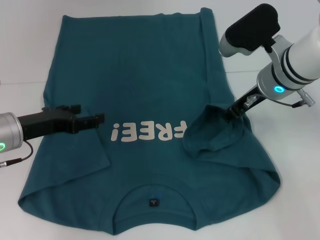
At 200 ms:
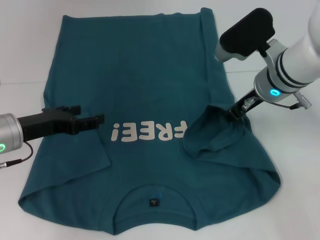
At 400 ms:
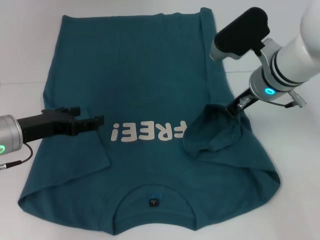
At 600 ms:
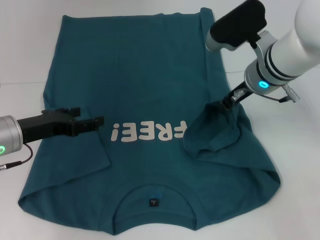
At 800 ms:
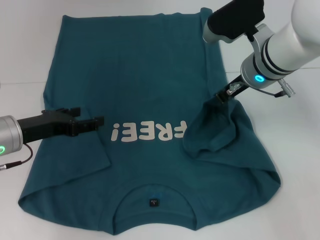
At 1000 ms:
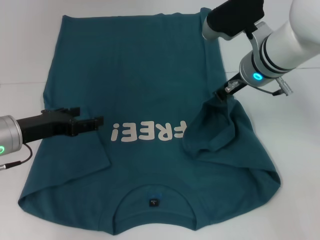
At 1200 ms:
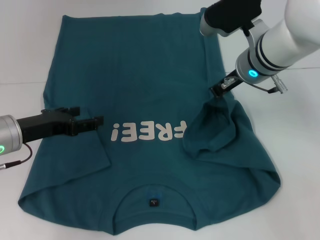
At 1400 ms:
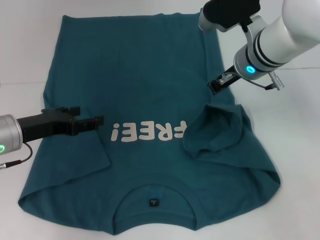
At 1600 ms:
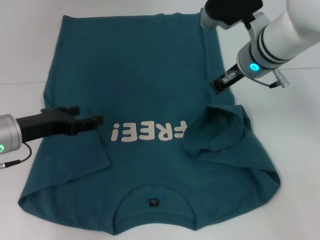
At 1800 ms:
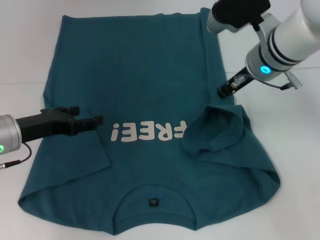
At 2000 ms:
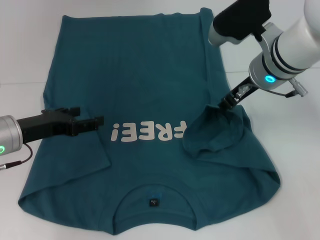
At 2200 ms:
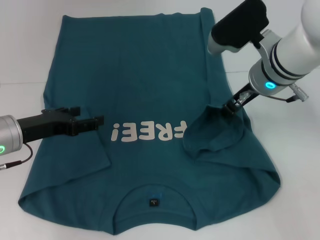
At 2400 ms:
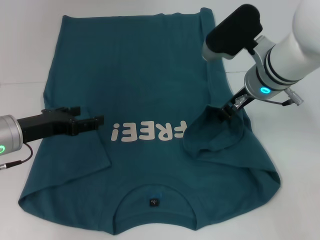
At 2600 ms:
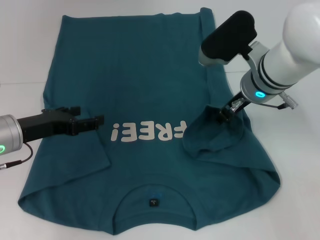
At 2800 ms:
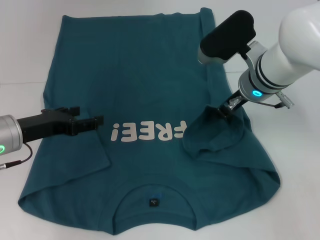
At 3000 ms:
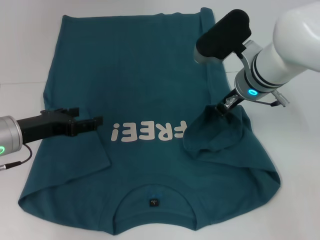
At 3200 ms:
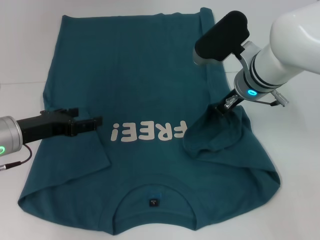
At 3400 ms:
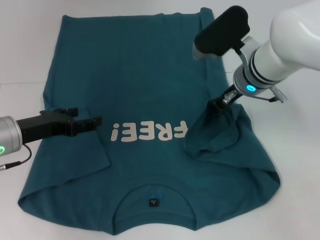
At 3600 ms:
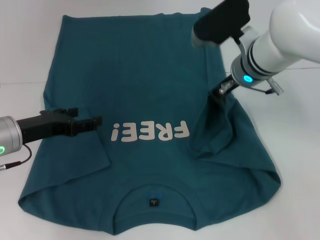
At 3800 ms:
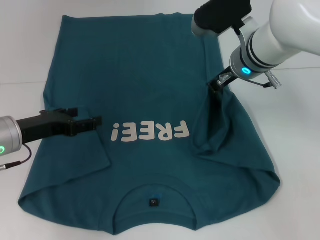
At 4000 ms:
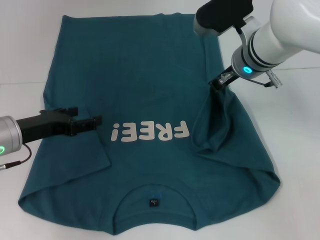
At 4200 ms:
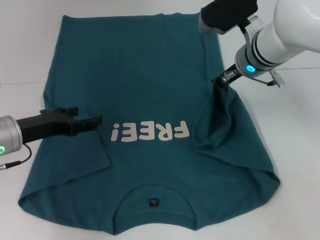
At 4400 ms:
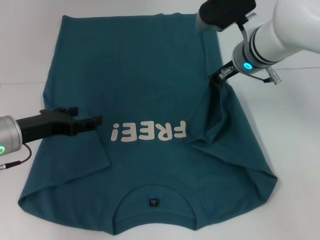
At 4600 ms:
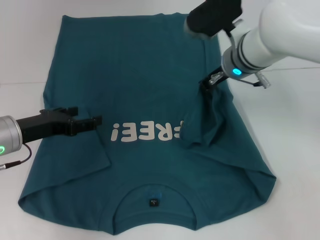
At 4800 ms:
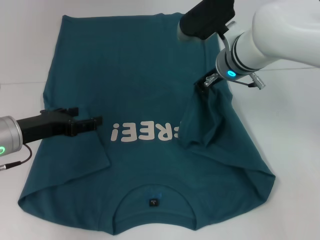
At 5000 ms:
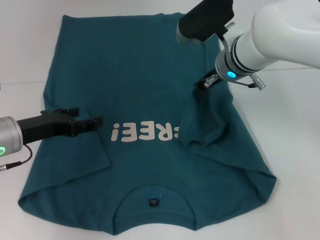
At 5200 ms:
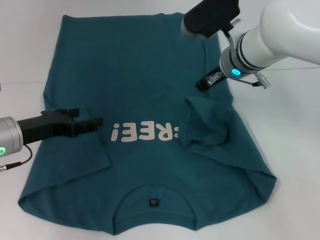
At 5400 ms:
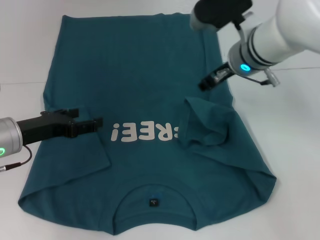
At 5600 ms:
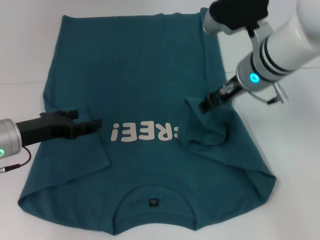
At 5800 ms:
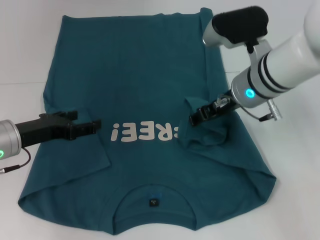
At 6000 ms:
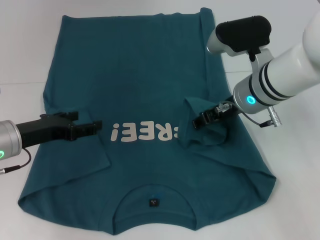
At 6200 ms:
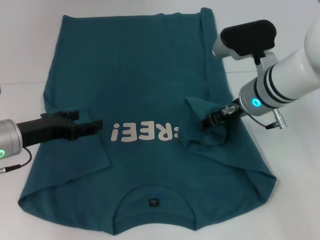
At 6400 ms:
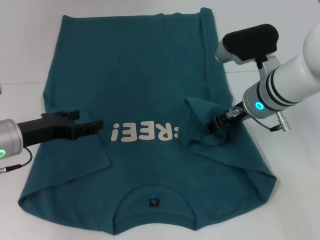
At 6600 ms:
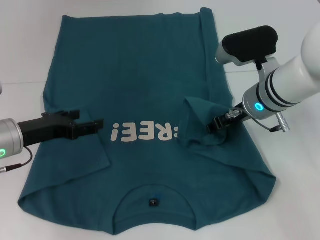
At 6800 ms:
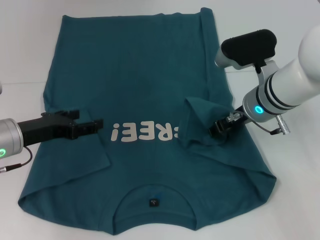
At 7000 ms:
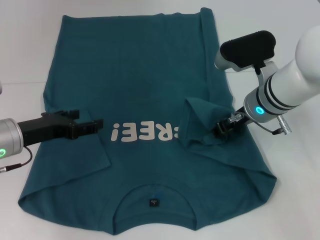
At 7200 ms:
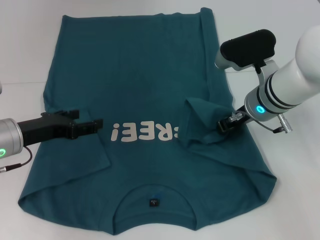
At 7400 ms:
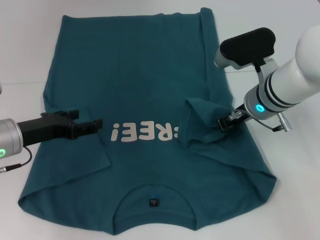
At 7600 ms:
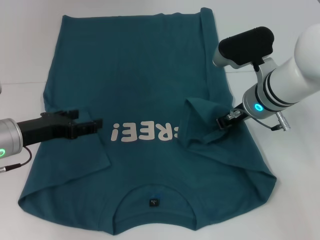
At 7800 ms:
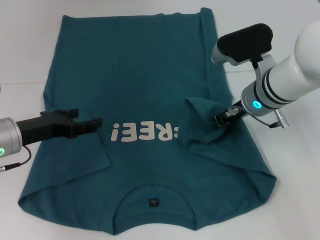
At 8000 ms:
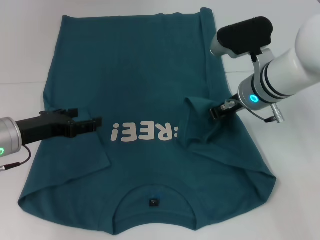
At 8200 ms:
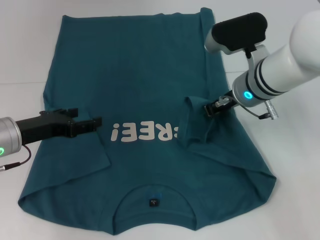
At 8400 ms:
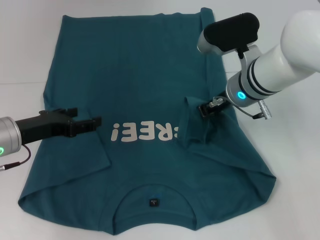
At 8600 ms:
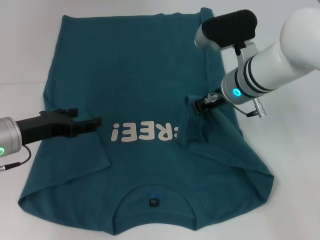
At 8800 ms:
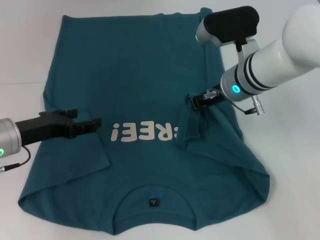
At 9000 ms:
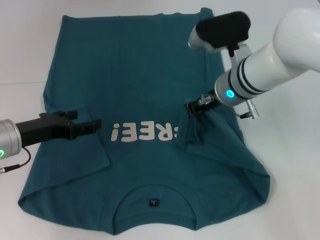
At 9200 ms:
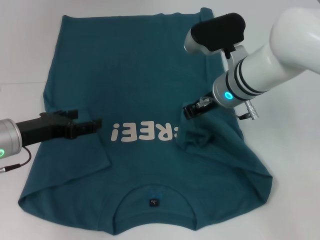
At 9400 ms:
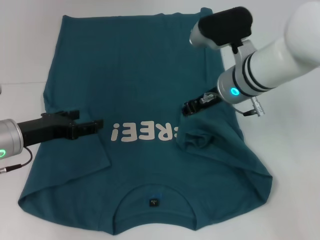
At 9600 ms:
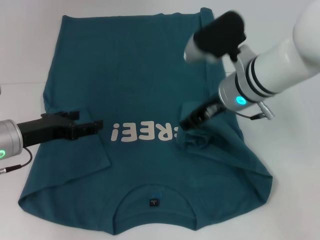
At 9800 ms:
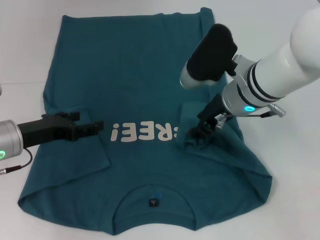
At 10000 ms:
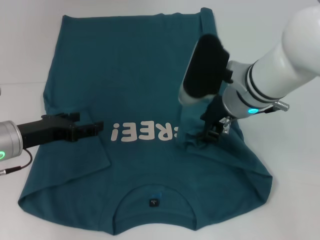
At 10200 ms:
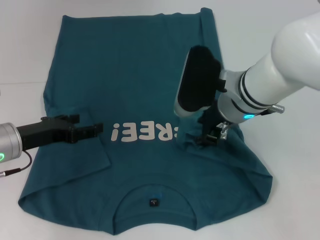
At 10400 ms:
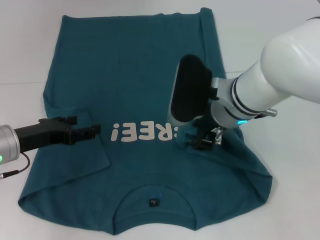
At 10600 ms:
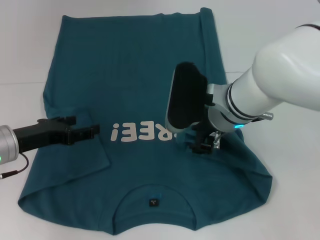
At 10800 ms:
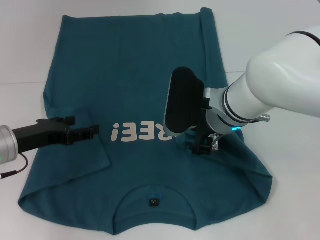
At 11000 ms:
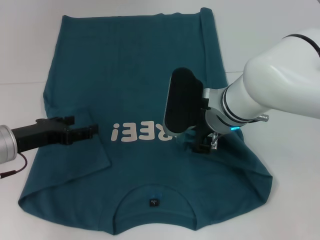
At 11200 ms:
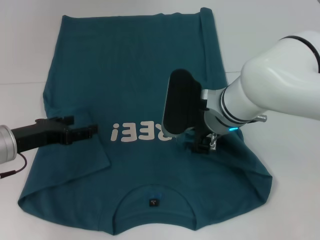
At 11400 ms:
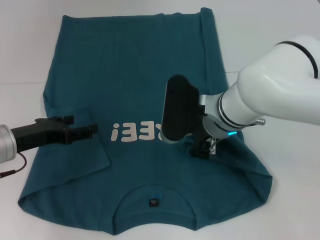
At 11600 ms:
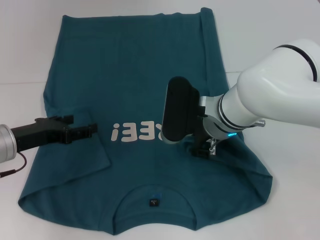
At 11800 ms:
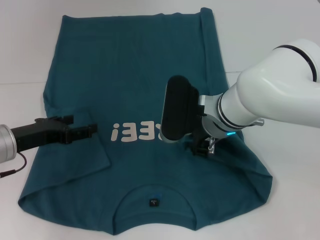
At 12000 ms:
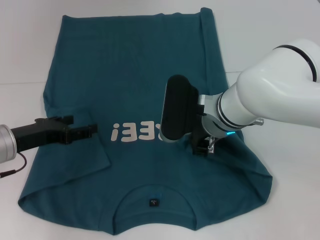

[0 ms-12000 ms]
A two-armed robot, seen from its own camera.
0 ms to 1600 ms: The right gripper closes.
1600 ms to 3000 ms: The right gripper opens.
3000 ms to 4400 ms: The right gripper closes.
4400 ms to 6000 ms: The right gripper is displaced backward by roughly 5 cm, and opens its fingers.
6000 ms to 7600 ms: The right gripper closes.
7600 ms to 9000 ms: The grippers stay close to where they were, moving slightly.
9000 ms to 10400 ms: The right gripper changes place by approximately 5 cm, and opens up.
10400 ms to 12000 ms: There are only small adjustments of the grippers.

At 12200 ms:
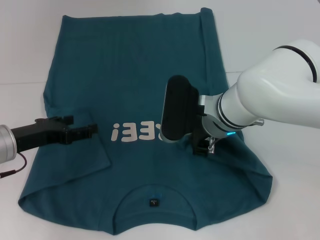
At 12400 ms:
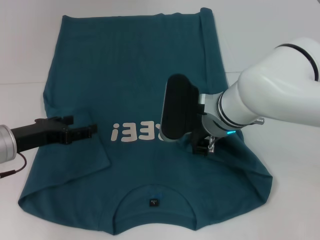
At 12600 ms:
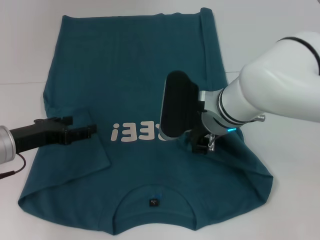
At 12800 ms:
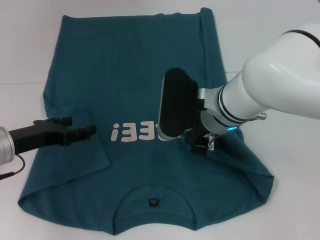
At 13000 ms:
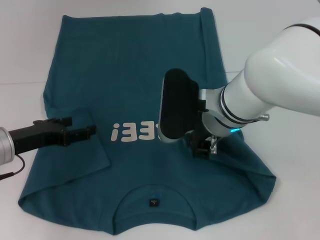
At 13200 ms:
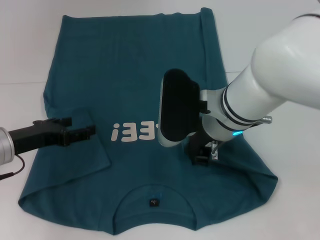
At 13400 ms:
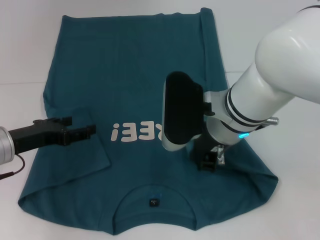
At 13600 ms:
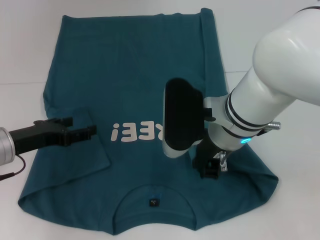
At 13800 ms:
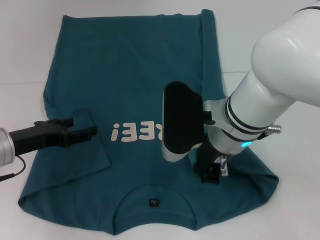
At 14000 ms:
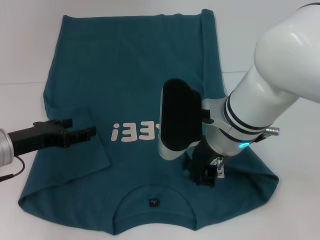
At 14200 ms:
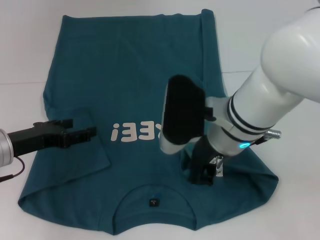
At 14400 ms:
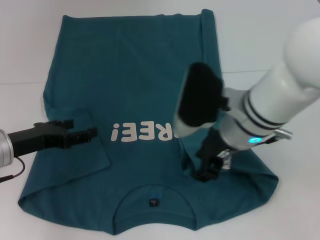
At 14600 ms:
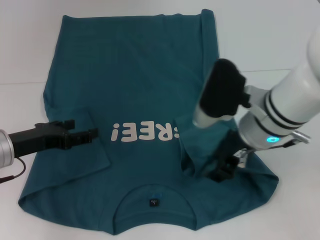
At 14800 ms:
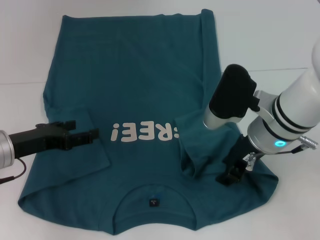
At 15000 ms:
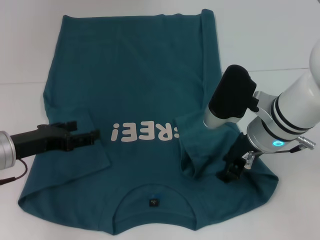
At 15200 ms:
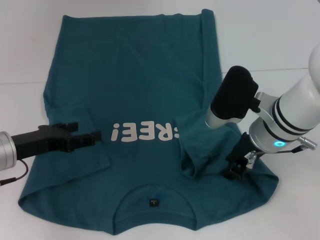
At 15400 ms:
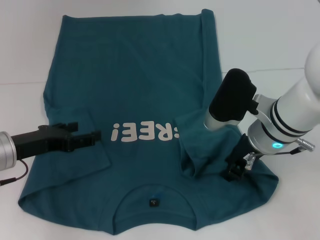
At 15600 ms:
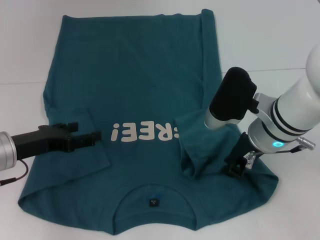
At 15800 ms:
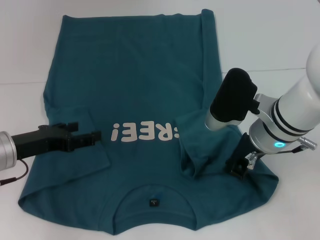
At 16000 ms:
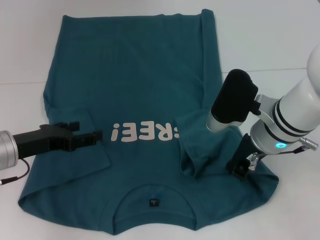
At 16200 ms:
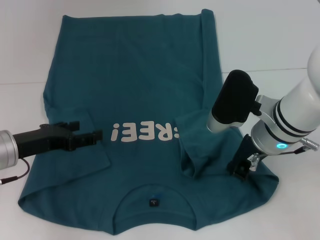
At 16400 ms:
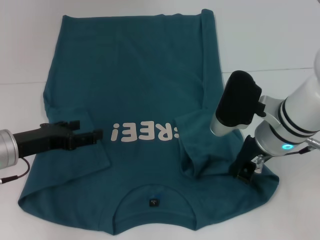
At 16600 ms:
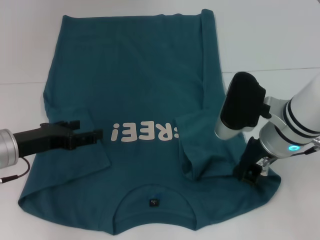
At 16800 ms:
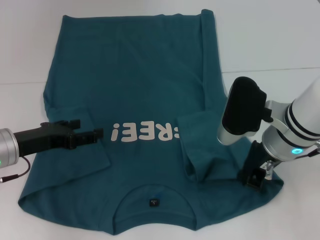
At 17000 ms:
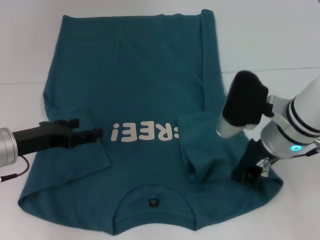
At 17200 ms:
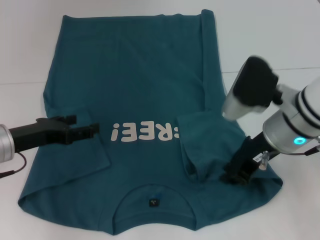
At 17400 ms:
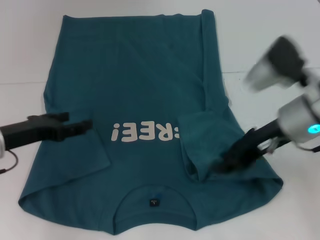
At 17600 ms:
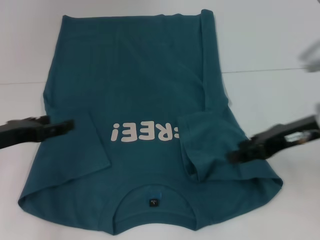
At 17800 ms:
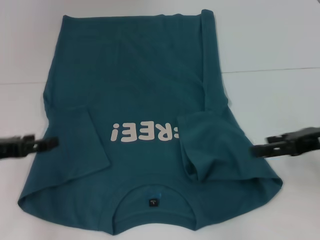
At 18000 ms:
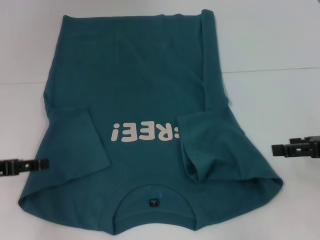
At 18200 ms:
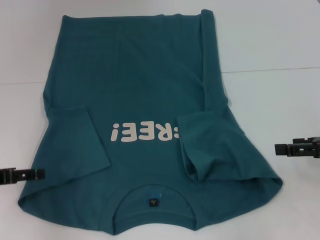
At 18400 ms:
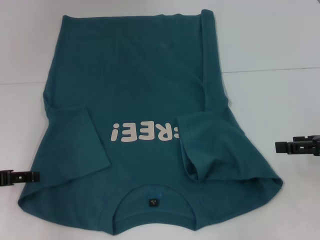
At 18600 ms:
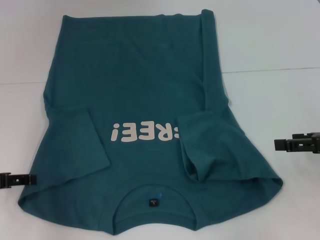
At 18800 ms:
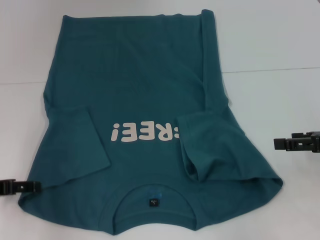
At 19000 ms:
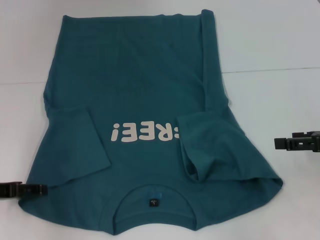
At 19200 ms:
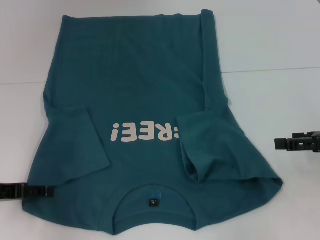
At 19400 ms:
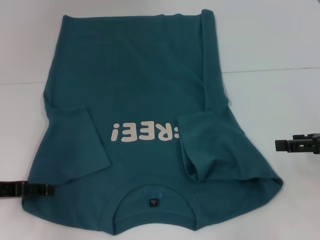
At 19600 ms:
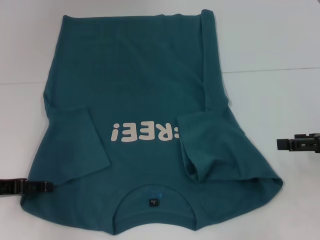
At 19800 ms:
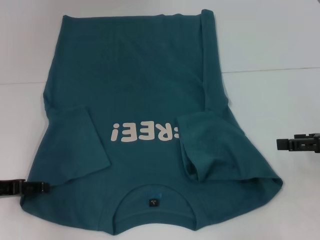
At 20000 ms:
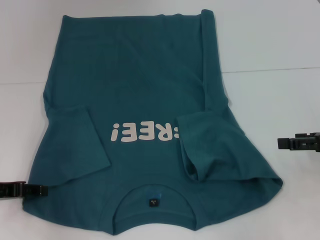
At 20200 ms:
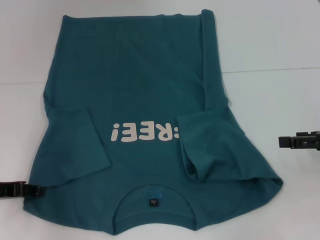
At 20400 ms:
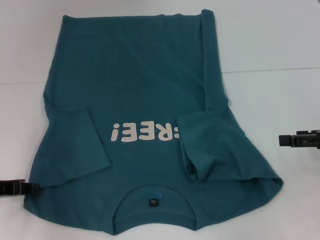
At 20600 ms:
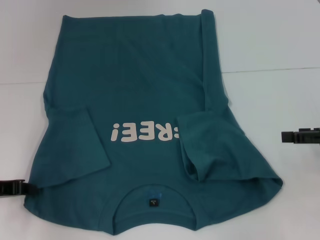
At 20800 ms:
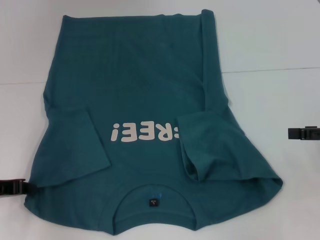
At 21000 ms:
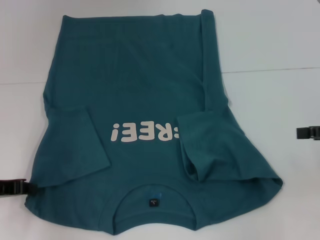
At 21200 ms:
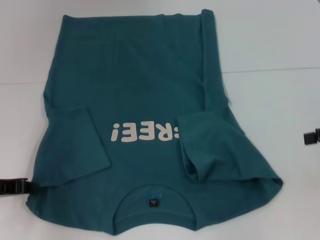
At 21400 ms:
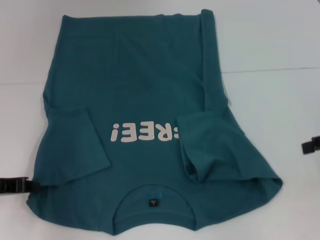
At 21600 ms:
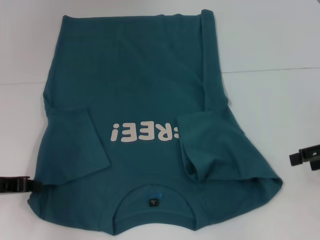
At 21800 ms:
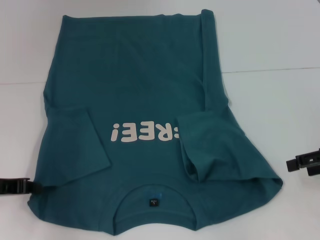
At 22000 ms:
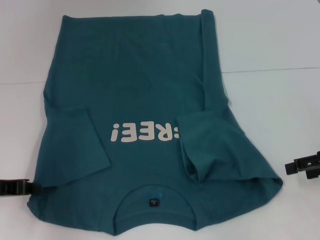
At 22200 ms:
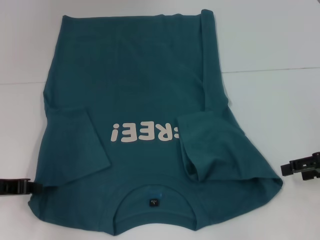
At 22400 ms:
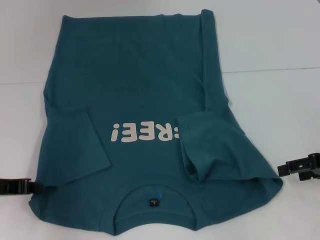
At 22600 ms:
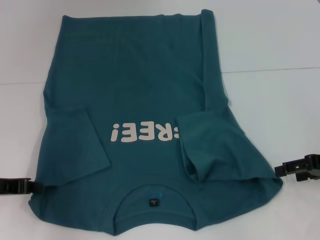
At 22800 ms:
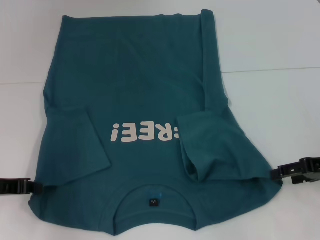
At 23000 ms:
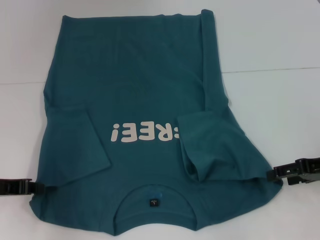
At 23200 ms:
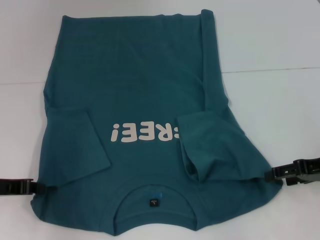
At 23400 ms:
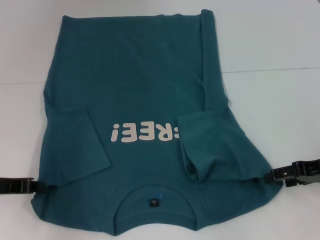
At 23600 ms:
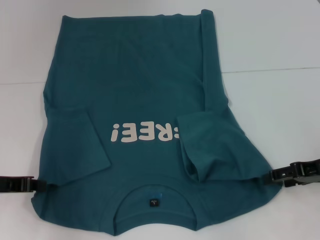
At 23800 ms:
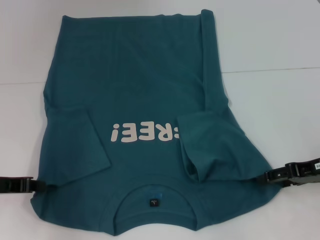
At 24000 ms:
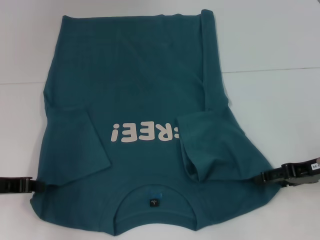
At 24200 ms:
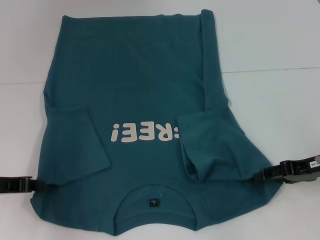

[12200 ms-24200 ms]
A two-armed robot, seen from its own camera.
Step, 12200 ms to 14400 ms: Fold the bottom right sleeve to the right.
Step, 14600 ms to 20600 ms: Grab the bottom left corner with your left hand.
12200 ms to 13800 ms: The right gripper changes place by roughly 5 cm.
13800 ms to 15200 ms: The right gripper shifts roughly 5 cm to the right, and opens.
15200 ms to 16600 ms: The right gripper closes up.
16600 ms to 18200 ms: The right gripper travels to the right by about 15 cm, and opens up. Meanwhile the left gripper is displaced to the left by some 5 cm.
18200 ms to 19800 ms: The grippers stay close to where they were, moving slightly.
21200 ms to 22600 ms: The right gripper goes about 5 cm downward.
22600 ms to 24200 ms: The grippers move only a little.
